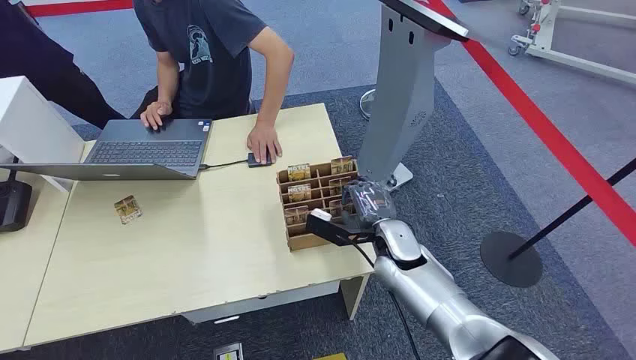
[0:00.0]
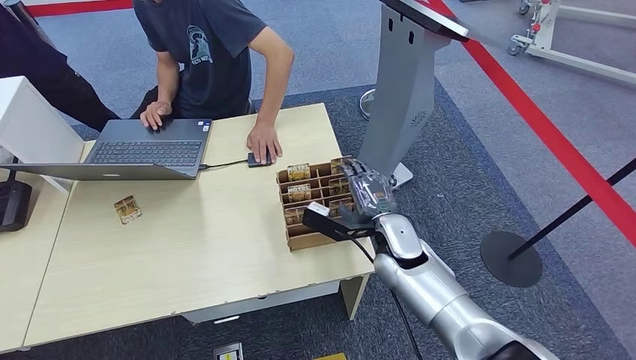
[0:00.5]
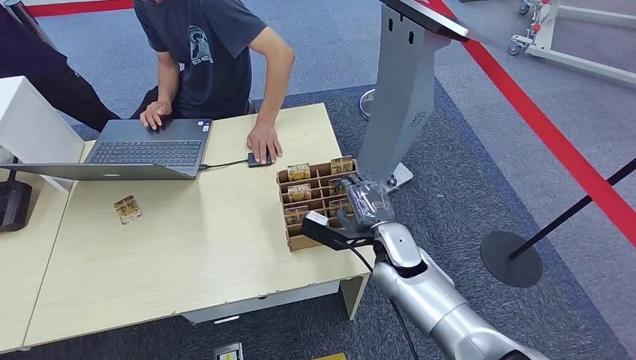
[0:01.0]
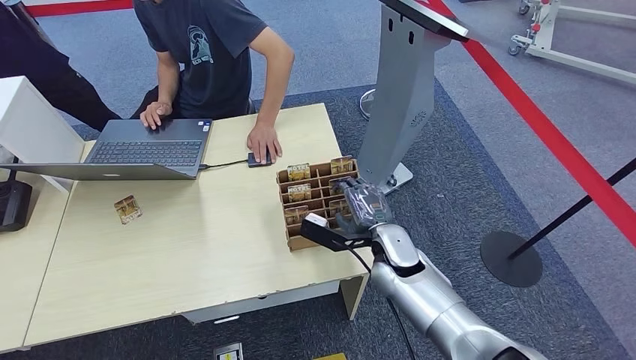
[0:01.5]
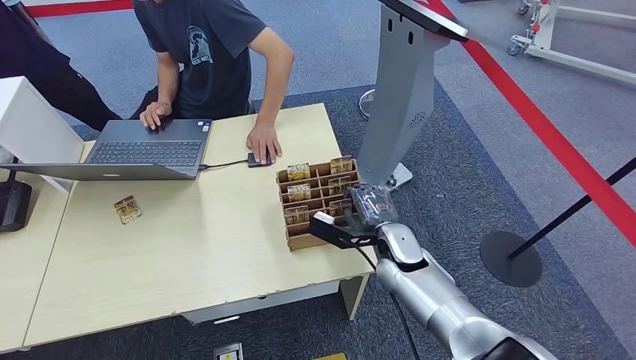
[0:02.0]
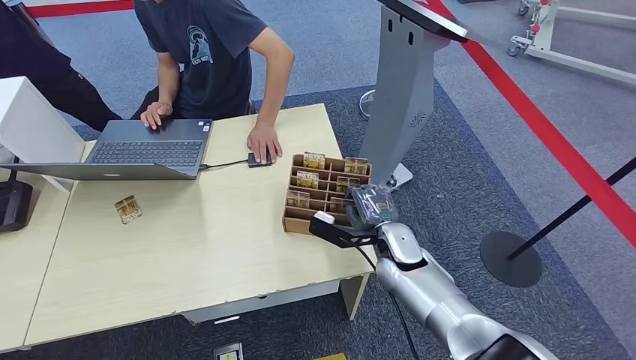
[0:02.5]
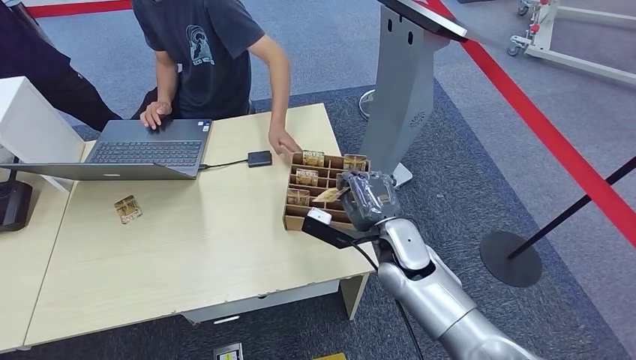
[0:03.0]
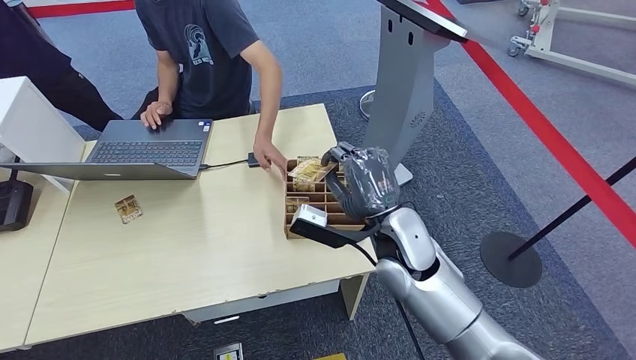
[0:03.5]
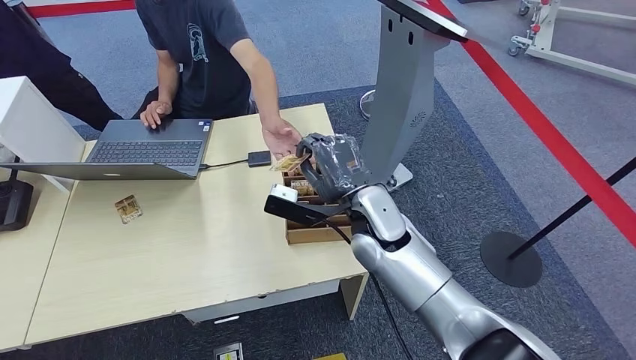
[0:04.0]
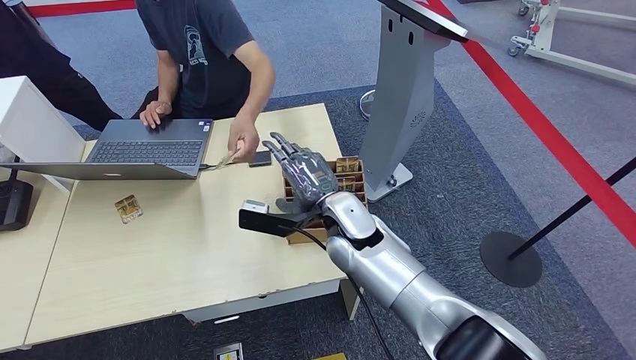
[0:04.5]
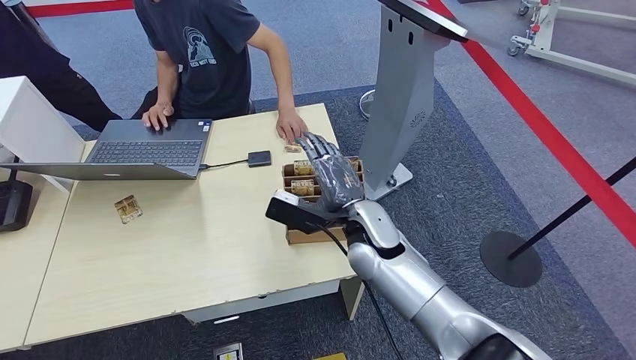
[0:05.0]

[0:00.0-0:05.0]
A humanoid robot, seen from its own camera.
Step, 0:00.0 to 0:03.0: Pick up the room card from the card holder.
Step, 0:03.5 to 0:05.0: Hand the room card to the target.
0:02.5 to 0:05.0: The right hand goes roughly 10 cm upward and to the left.
